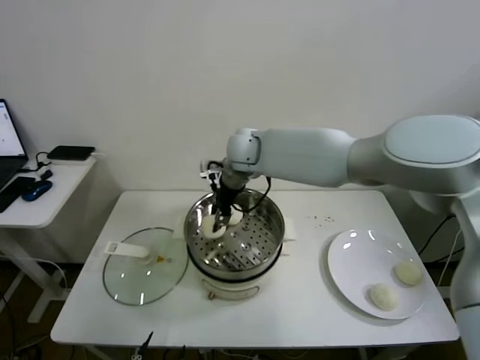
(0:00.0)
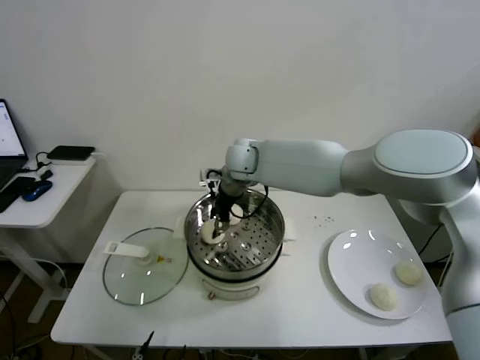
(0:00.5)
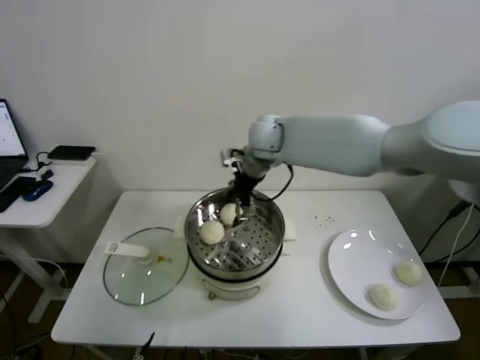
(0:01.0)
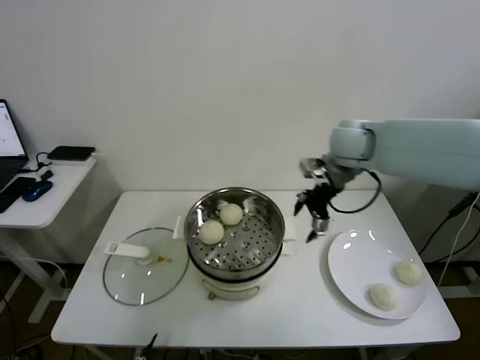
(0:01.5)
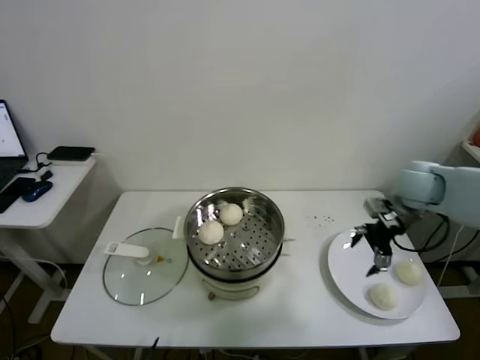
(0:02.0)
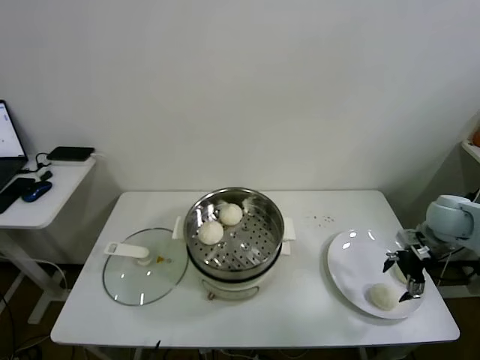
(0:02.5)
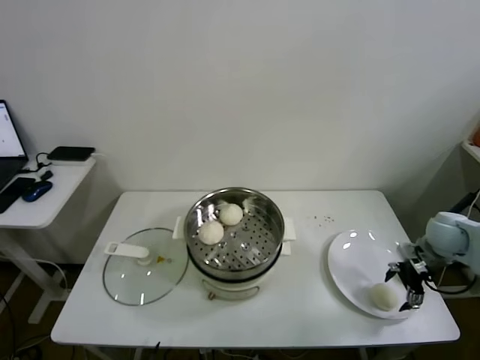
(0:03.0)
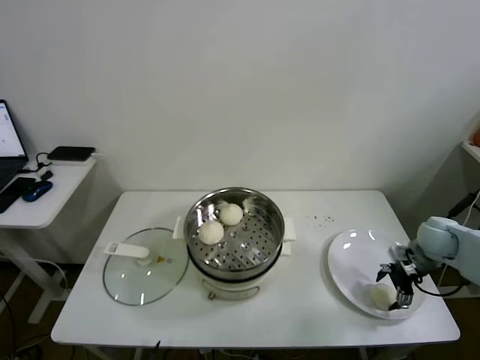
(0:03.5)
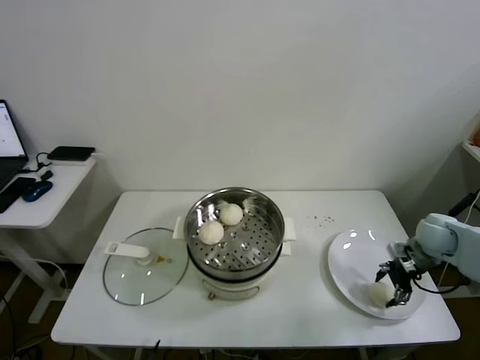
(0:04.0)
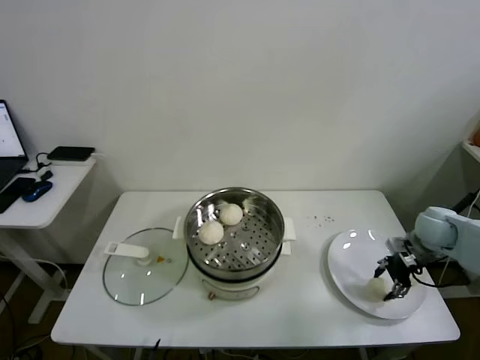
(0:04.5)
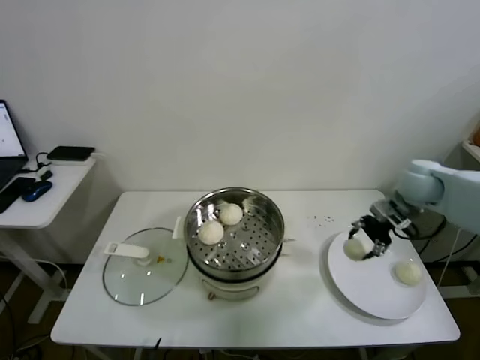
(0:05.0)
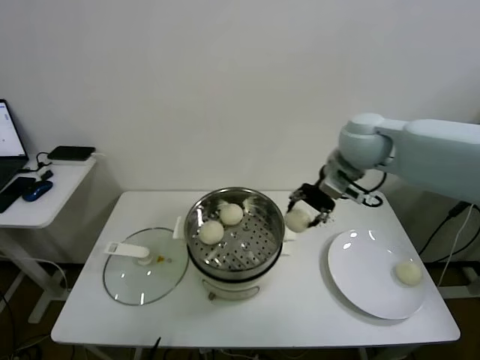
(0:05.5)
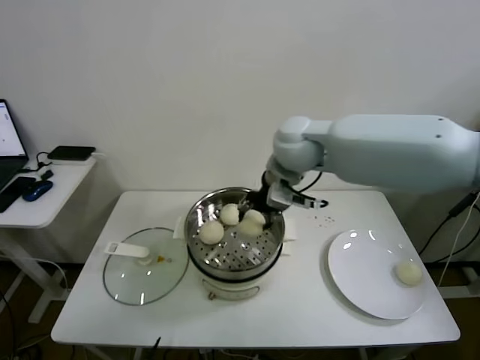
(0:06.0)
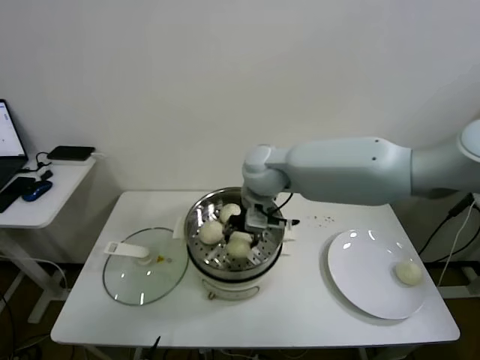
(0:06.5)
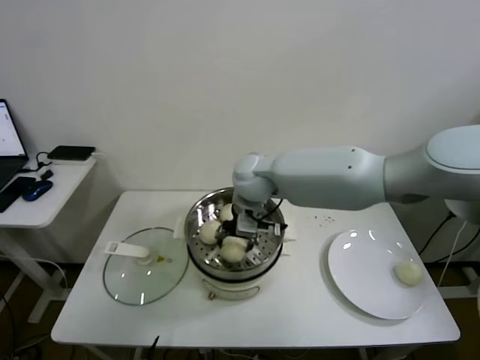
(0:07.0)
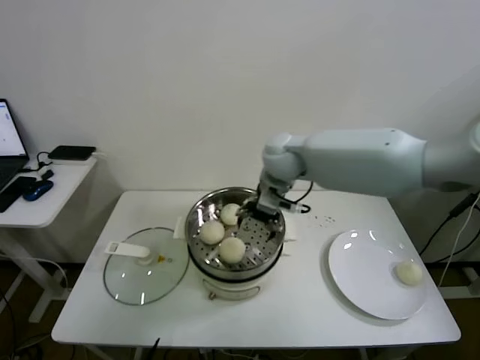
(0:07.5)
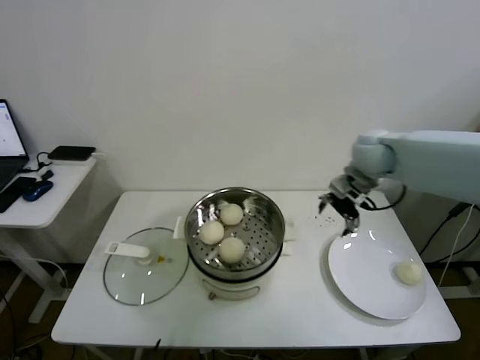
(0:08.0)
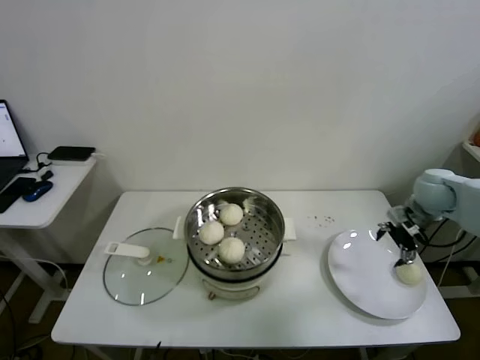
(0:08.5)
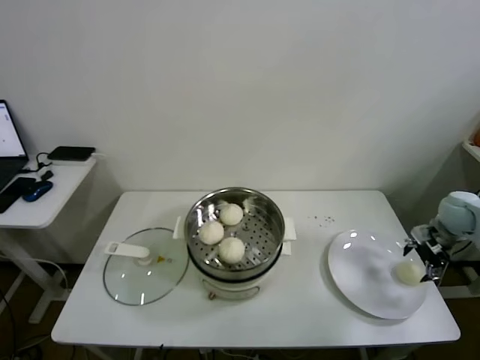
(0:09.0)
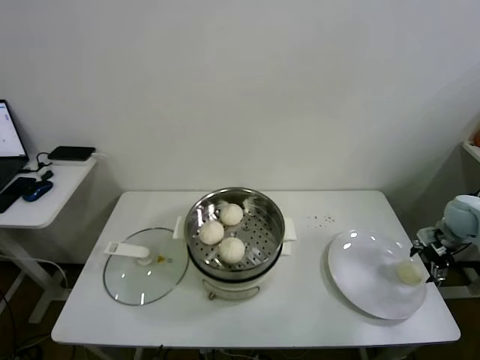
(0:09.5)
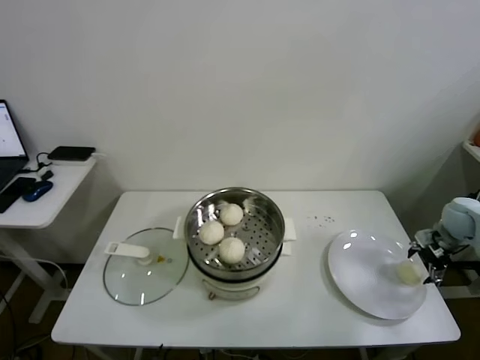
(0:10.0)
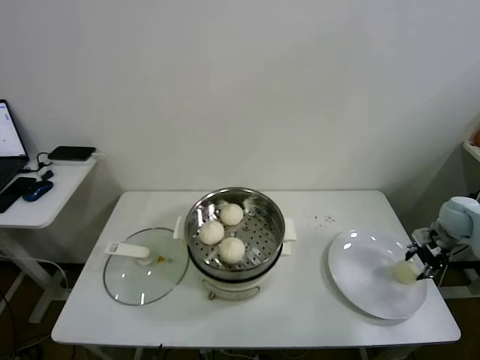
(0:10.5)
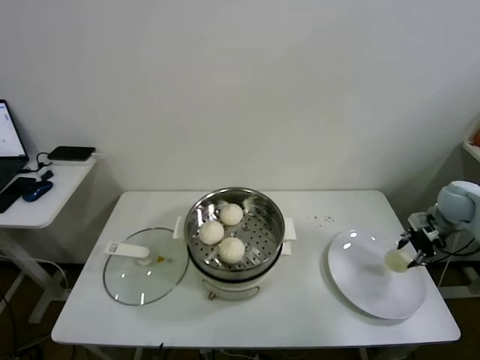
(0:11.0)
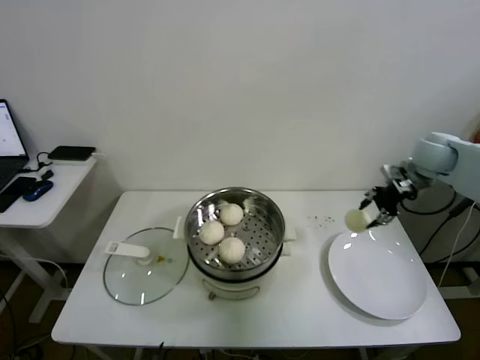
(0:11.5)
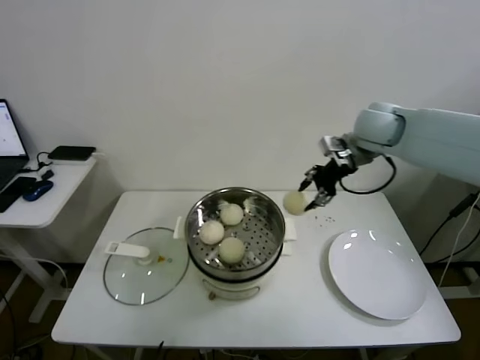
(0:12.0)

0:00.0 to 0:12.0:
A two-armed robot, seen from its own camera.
Task of the whole recording: take steamed baozi put them in steamer.
Step, 0:01.0 to 0:04.0: Grasp the baozi in the plate with right gripper.
Step, 0:04.5 to 0:07.0: Place the baozi on the steamer with right gripper.
Step, 0:07.5 to 0:10.5: Grasp the baozi in the plate with right gripper.
0:00.0 to 0:02.0: The right gripper heads to the right, covering some 35 cm, and opens its fingers.
0:02.0 to 0:04.0: The right gripper is displaced downward and to the right by some 15 cm.
0:04.0 to 0:06.0: The right gripper moves to the left and upward, some 40 cm, and closes up.
0:06.0 to 0:08.0: The right gripper shifts some 15 cm to the right, and opens its fingers.
0:08.0 to 0:10.0: The right gripper travels to the right and downward by approximately 35 cm.
0:10.0 to 0:12.0: The right gripper goes roughly 35 cm to the left and upward, and closes its fingers.

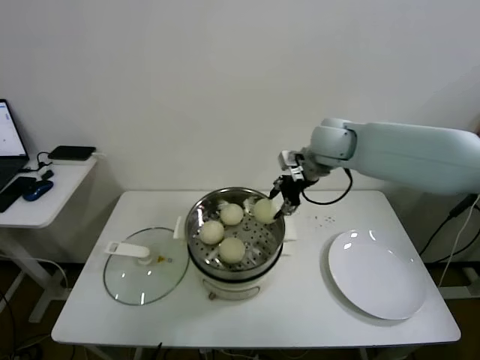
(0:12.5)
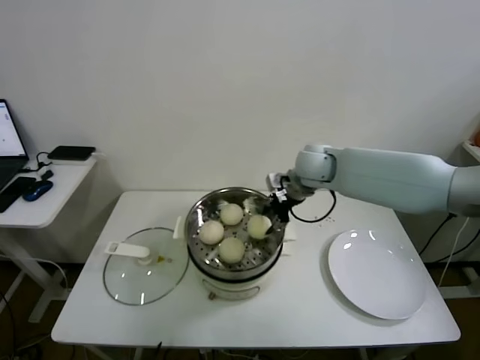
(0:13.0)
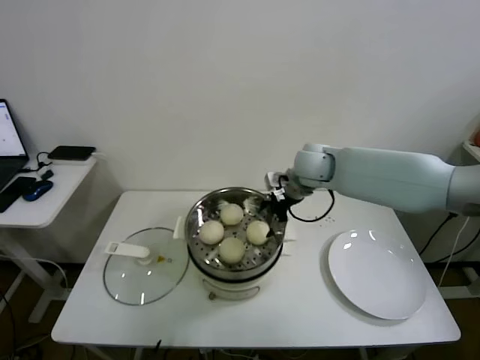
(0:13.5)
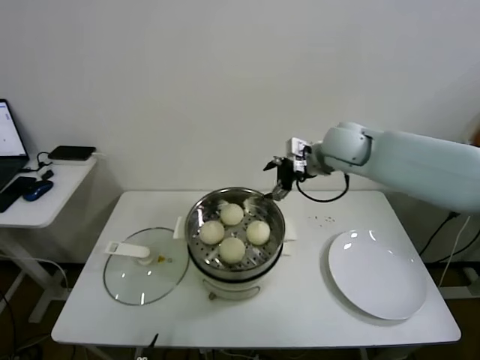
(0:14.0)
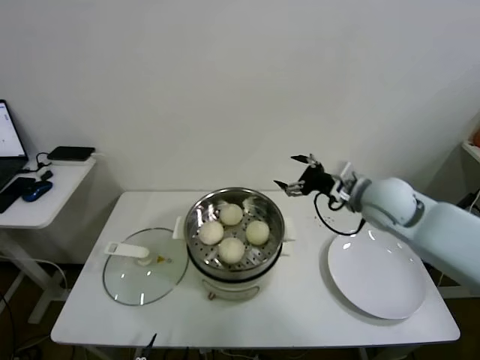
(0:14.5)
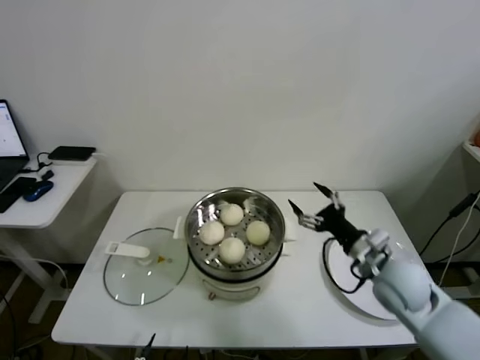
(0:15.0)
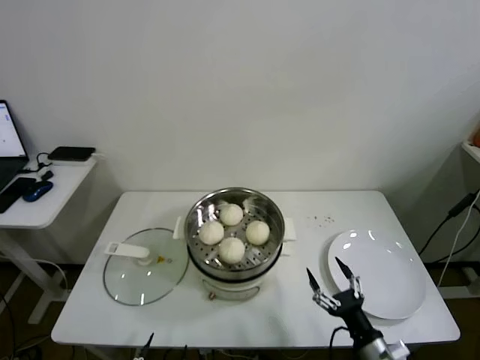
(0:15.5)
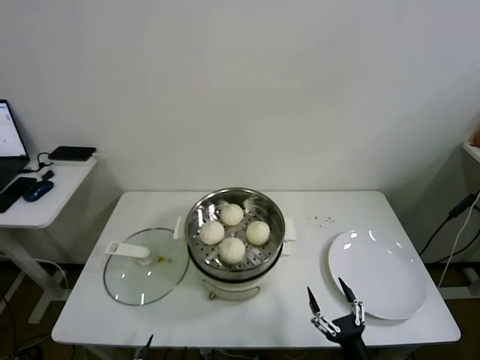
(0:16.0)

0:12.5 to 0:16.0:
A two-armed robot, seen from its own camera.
Task of the whole recording: take steamed baozi put them in steamer.
0:12.5 to 0:14.5: The right gripper is displaced backward, to the right and downward by some 15 cm, and opens.
0:14.5 to 0:16.0: The right gripper shifts approximately 40 cm backward and downward.
